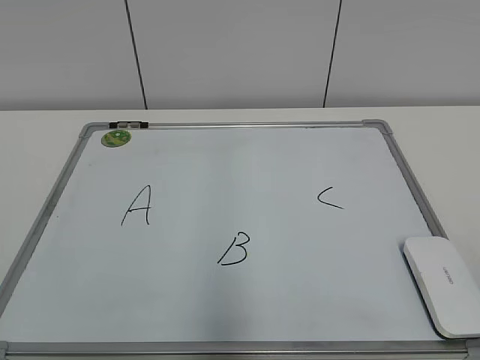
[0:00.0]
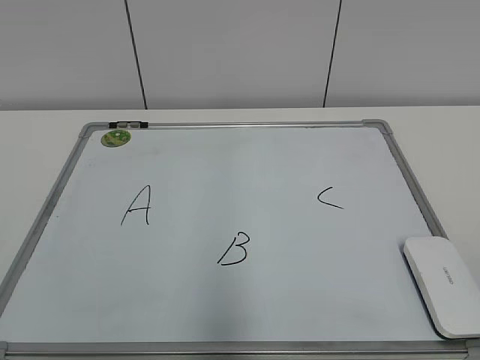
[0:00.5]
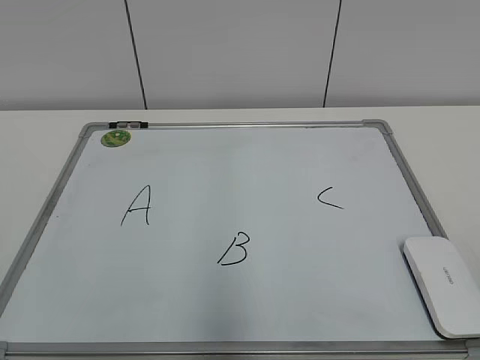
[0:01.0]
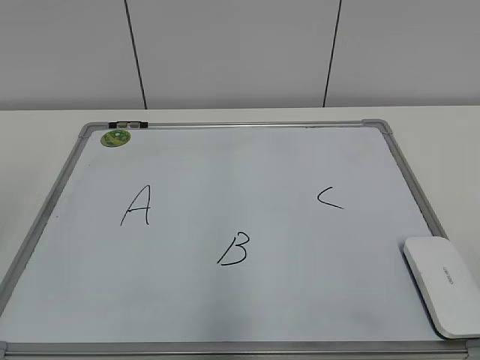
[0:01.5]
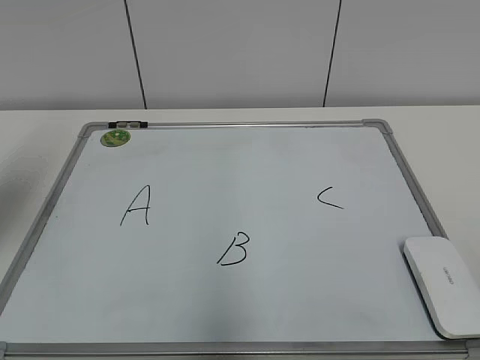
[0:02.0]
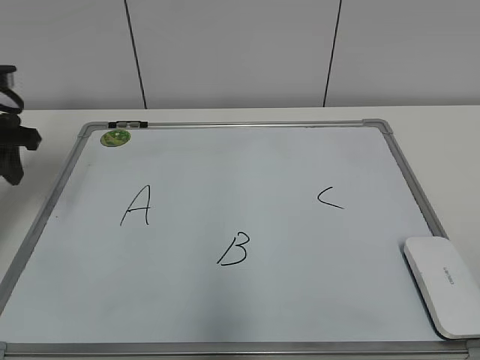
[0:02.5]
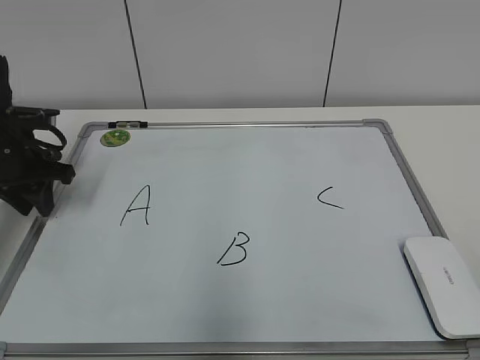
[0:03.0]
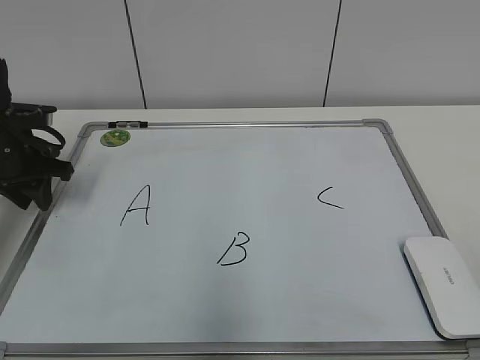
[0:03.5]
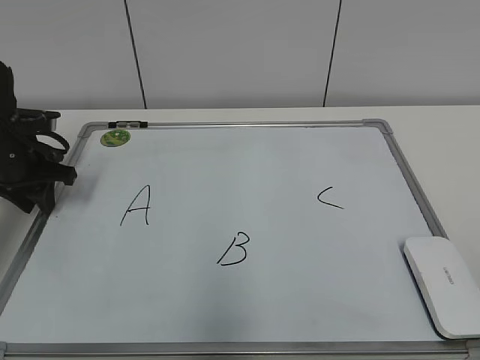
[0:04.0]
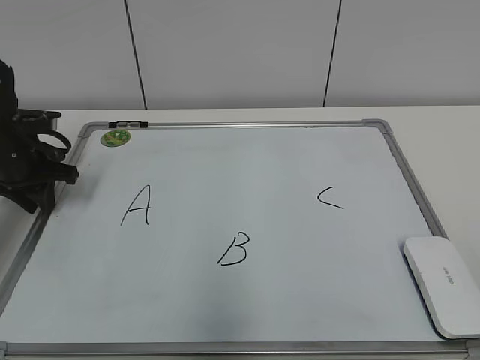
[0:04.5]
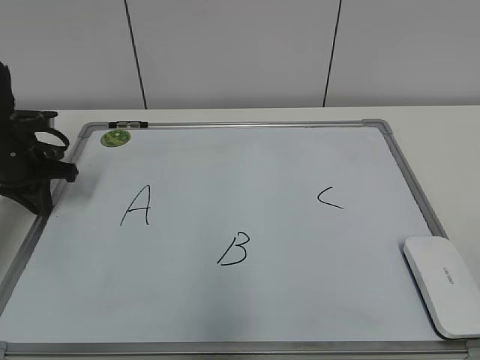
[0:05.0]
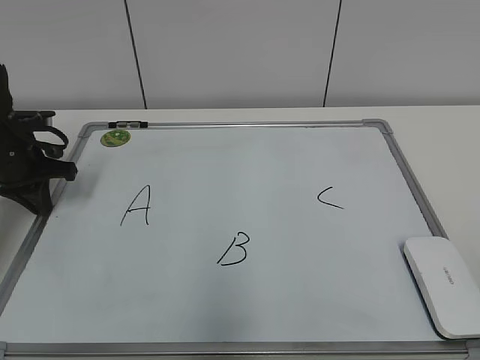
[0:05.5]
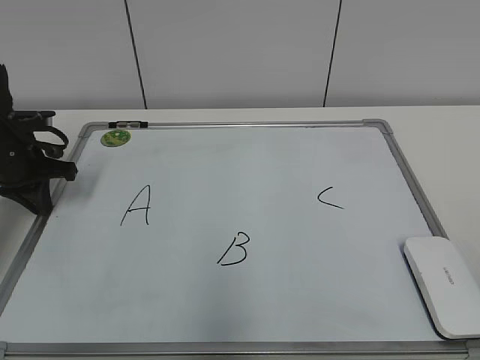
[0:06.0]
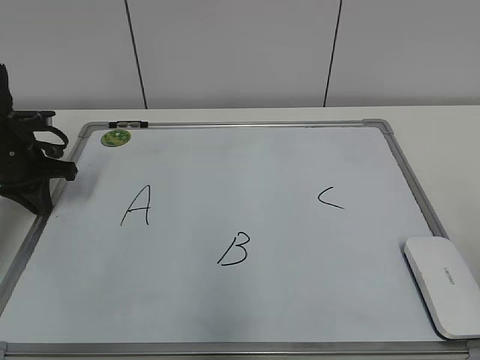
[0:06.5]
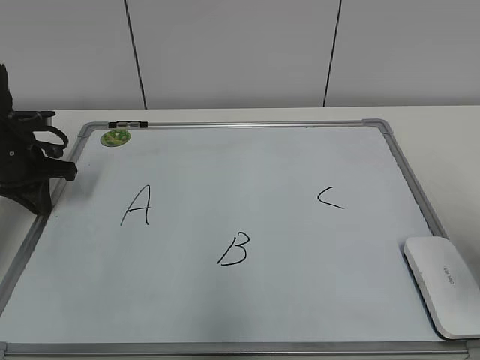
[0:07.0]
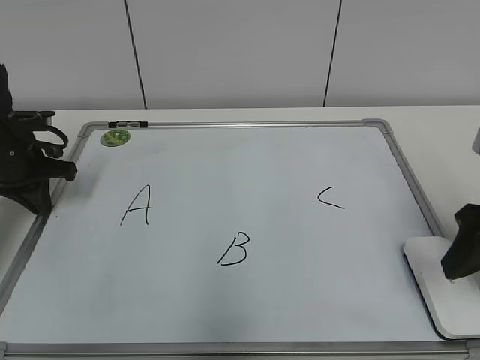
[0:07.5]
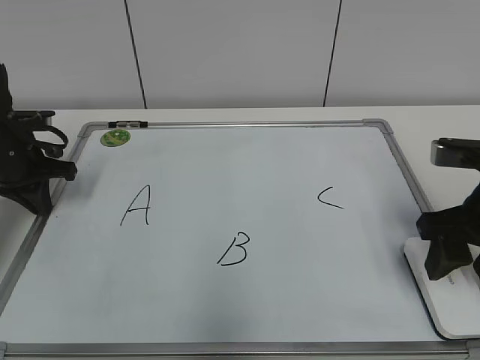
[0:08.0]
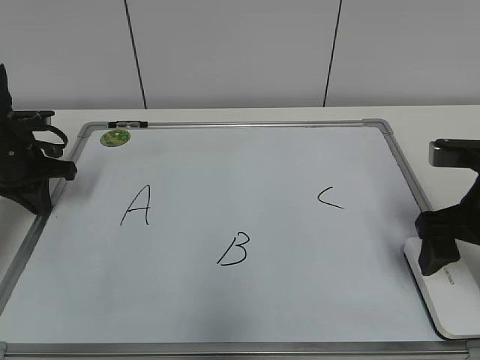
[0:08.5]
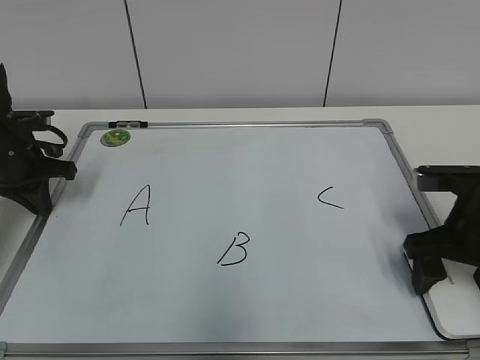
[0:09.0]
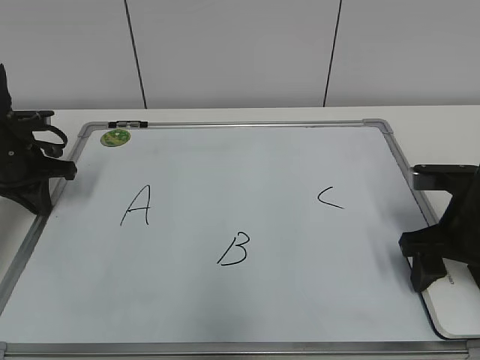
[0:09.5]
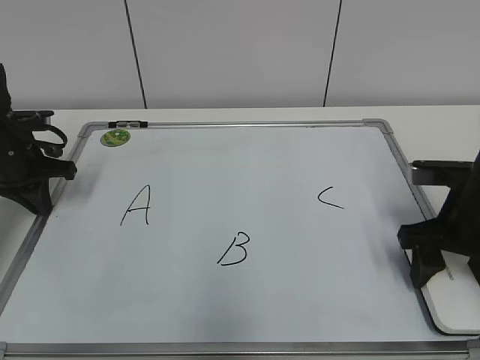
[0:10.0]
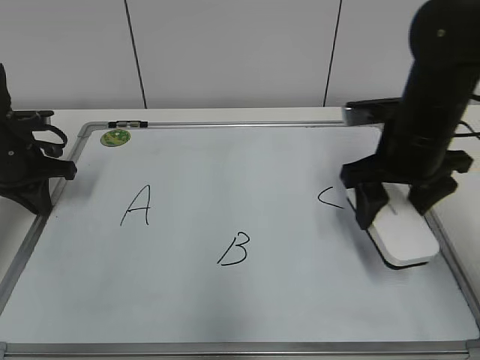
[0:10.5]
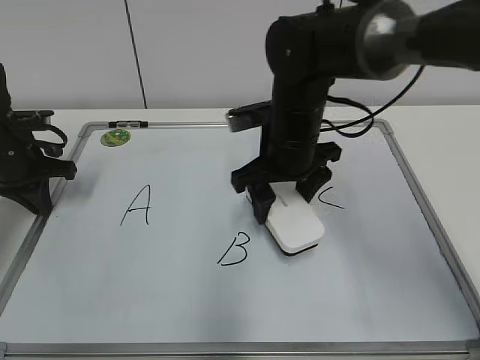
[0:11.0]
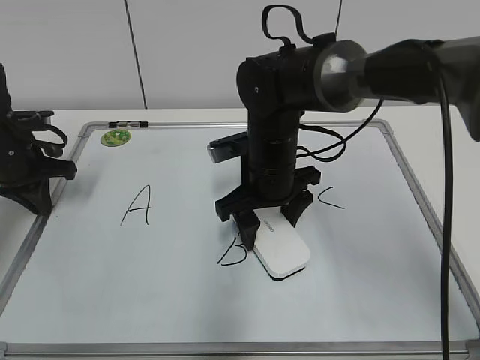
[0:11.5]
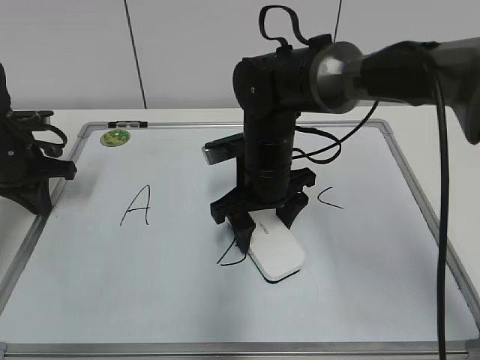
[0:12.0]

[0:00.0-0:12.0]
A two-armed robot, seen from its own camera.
Task of the whole recording: pick up the eraser on the blackboard and erase the letter "B".
Step, 0:00.0 to 0:04.5: Hold the drawing board steady with your left hand.
Step, 0:05.0 to 0:09.5: Grab the eraser with your right hand.
0:02.0 to 0:04.0: The left gripper is displaced downward and forward by some 20 cm.
0:04.0 to 0:06.0: The left gripper closes up.
0:06.0 to 0:08.0: The right gripper is displaced forward by approximately 25 cm.
0:08.0 to 0:10.0: The right gripper ends up roughly 5 cm from where it was, and opens and closes again.
0:10.0 to 0:12.0: The right gripper moves to the left, approximately 20 cm.

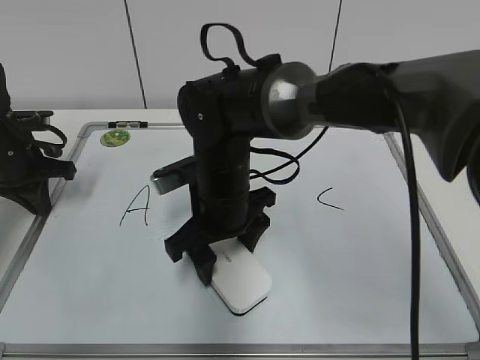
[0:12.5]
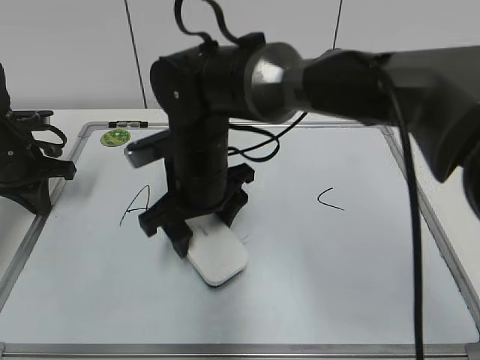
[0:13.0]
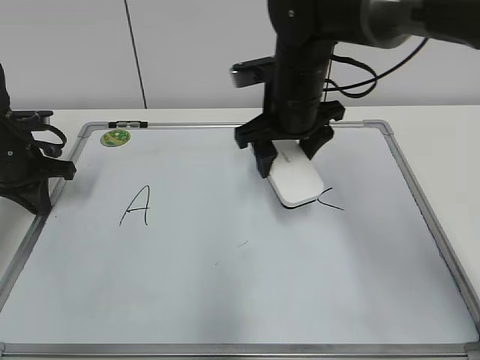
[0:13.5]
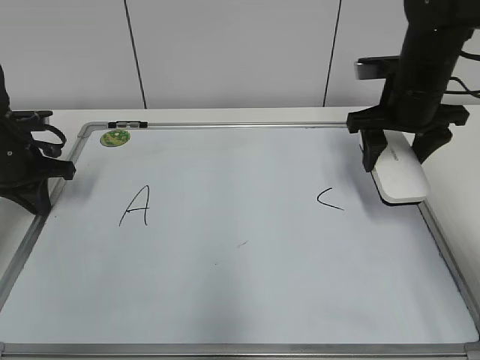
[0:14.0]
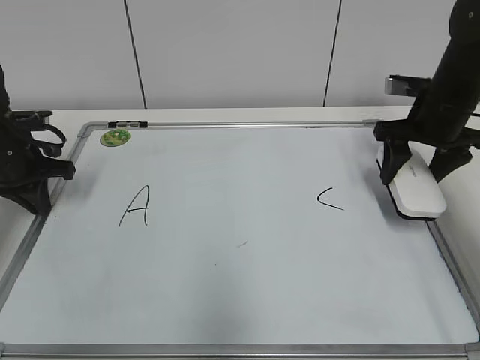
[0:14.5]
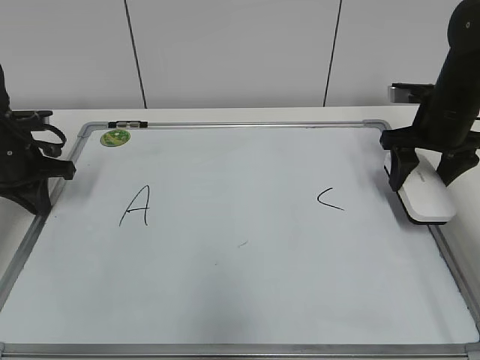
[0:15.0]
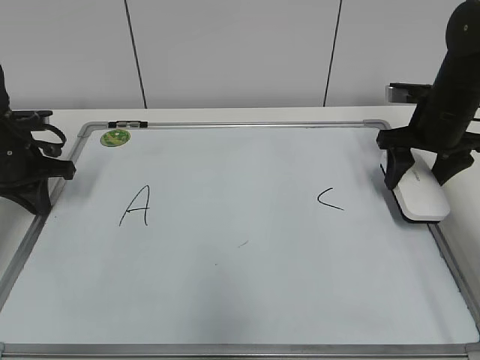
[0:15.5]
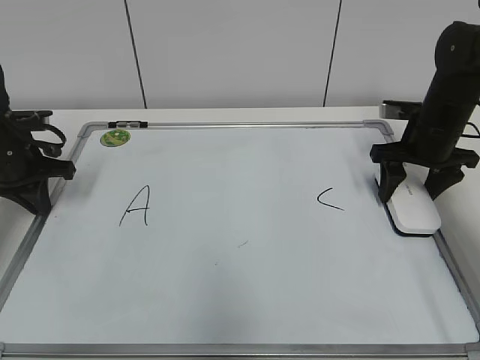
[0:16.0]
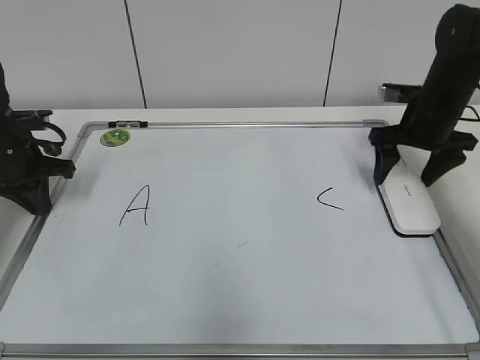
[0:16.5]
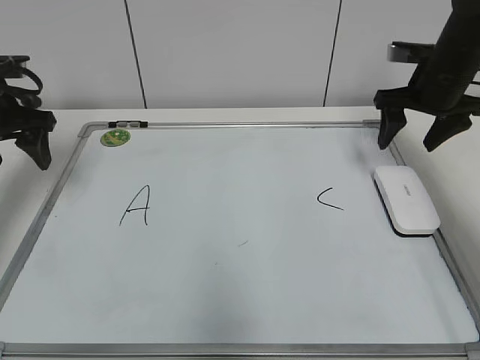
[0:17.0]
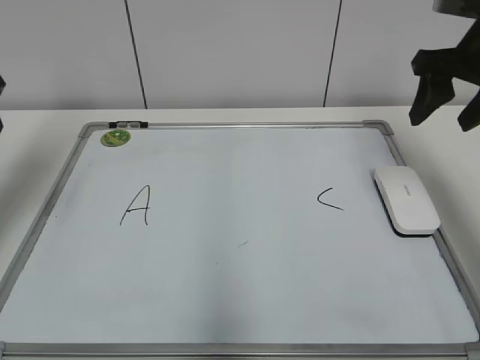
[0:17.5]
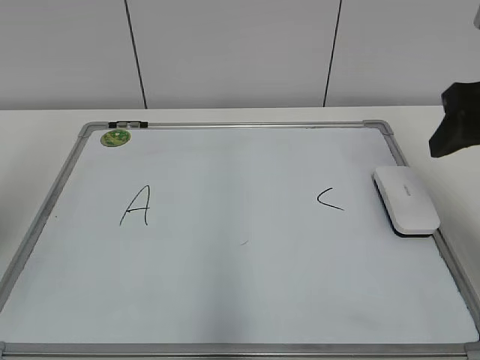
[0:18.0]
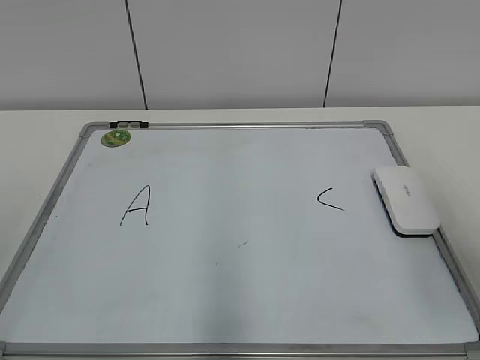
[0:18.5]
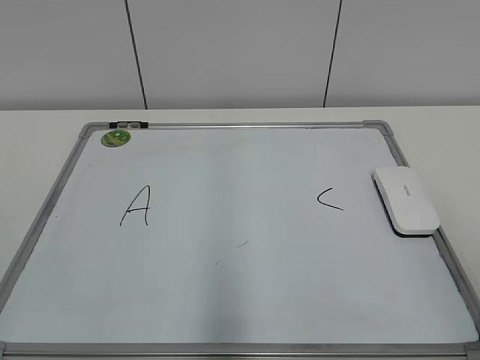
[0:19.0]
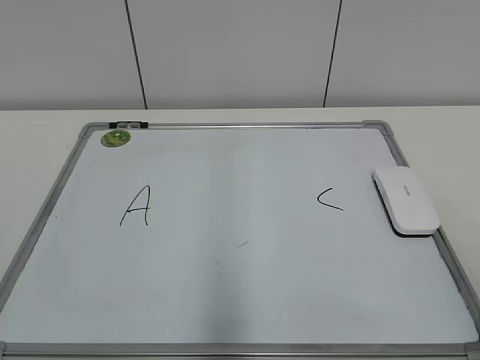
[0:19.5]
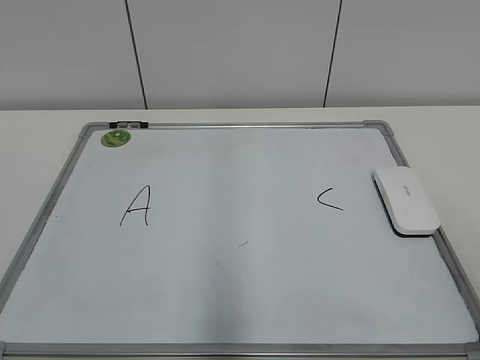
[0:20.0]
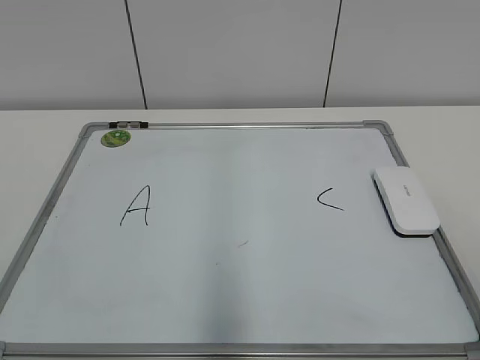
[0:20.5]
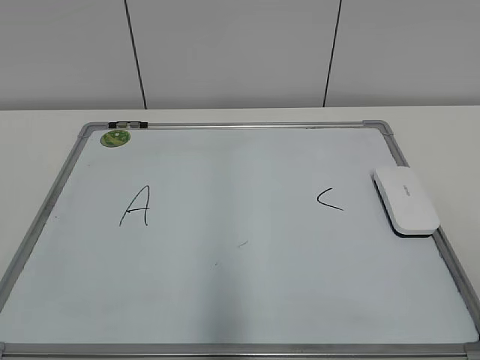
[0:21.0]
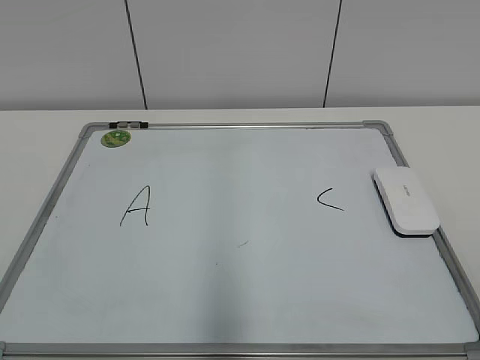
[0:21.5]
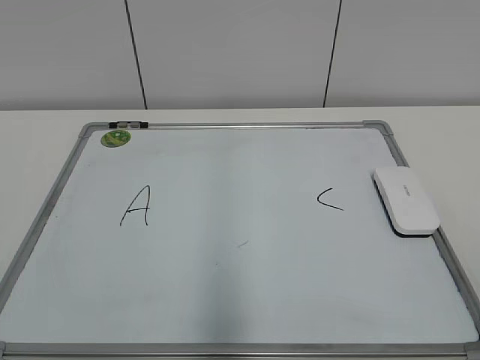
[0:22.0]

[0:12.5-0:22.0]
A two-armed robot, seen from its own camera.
Task of the whole recording: pick up the eraser on the blackboard and erase the letter "B".
0:12.5 to 0:14.5: The right gripper shifts roughly 30 cm to the right.
0:14.5 to 0:16.5: The right gripper opens.
0:16.5 to 0:18.0: The two grippers go about 25 cm backward and upward. The right gripper closes up; the left gripper opens its fingers.
0:18.0 to 0:20.0: The right gripper shifts roughly 25 cm backward.
